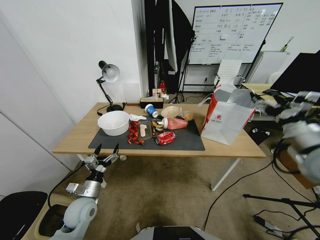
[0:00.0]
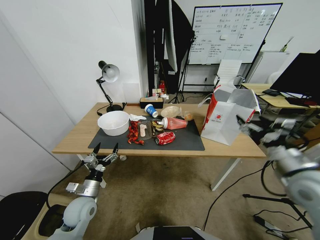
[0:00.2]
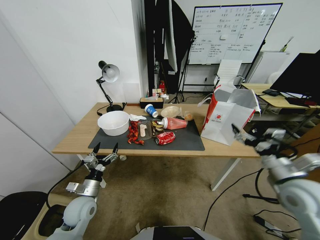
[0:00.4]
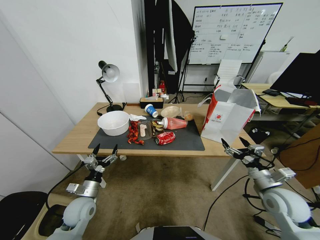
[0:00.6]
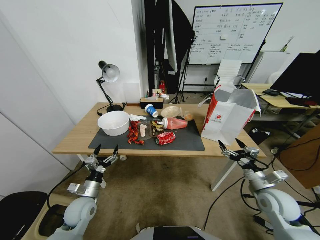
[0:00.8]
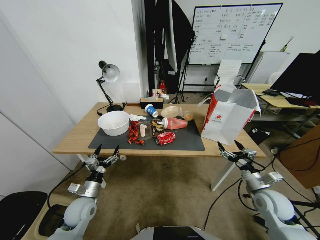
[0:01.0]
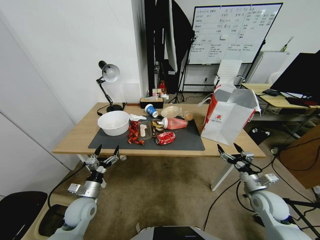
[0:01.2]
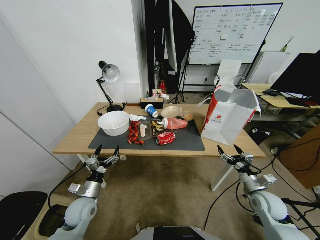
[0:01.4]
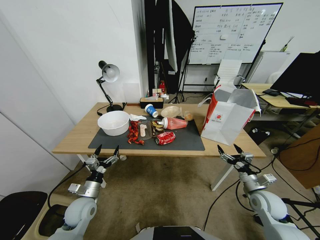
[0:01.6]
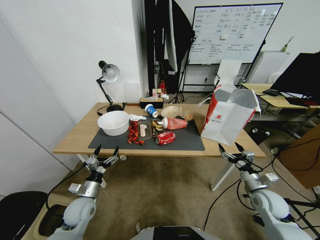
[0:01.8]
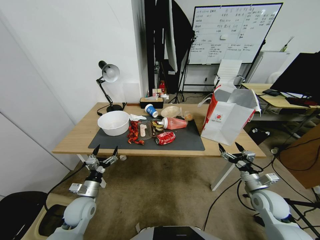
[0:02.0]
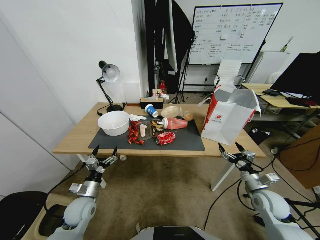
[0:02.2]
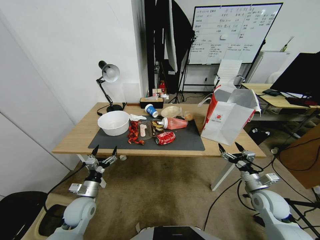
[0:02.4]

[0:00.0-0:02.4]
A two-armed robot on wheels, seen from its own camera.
Task of the whole recording: Pick up the food delivery bag from the floor and place it on the table.
0:00.0 to 0:01.2: The right gripper is displaced downward by some 20 cm.
0:01.2 to 0:02.4: There are only small adjustments of the grippers.
